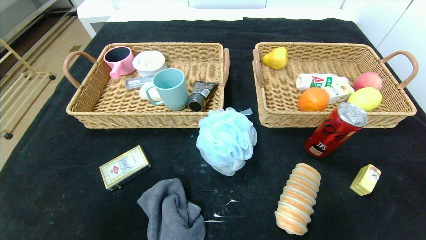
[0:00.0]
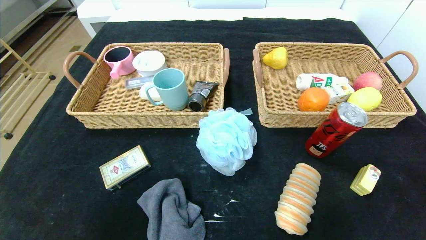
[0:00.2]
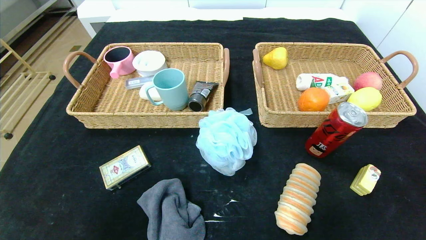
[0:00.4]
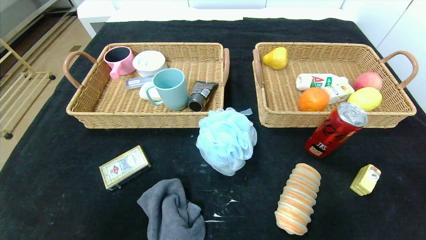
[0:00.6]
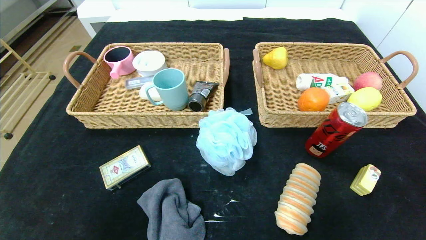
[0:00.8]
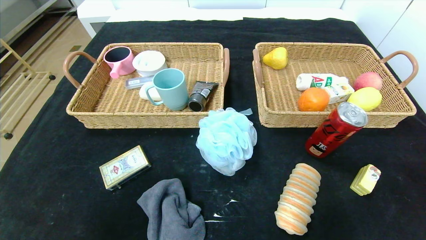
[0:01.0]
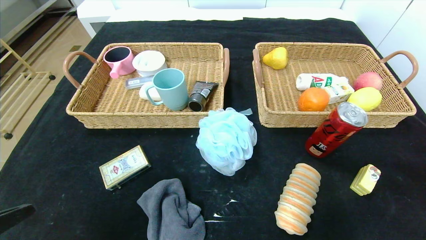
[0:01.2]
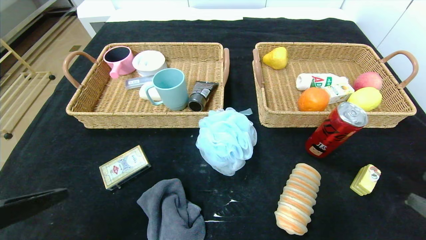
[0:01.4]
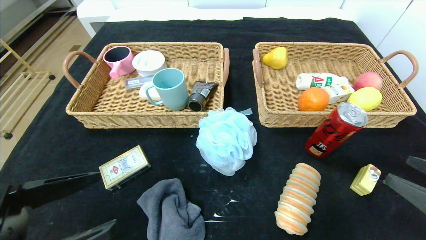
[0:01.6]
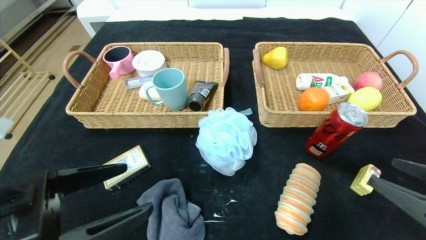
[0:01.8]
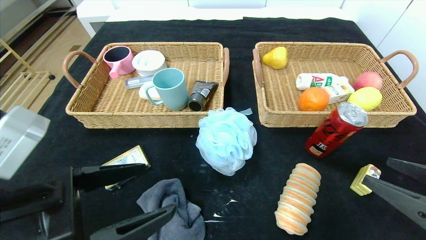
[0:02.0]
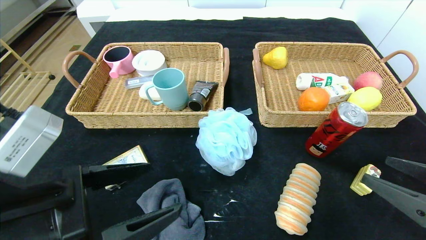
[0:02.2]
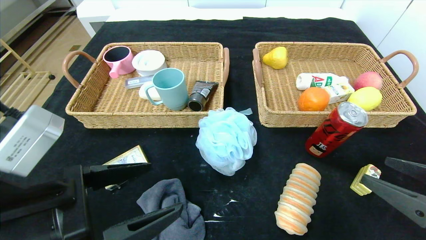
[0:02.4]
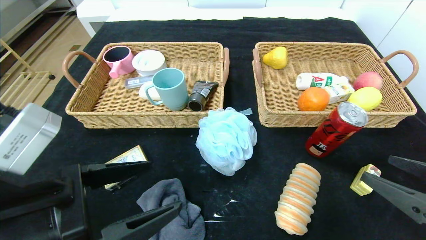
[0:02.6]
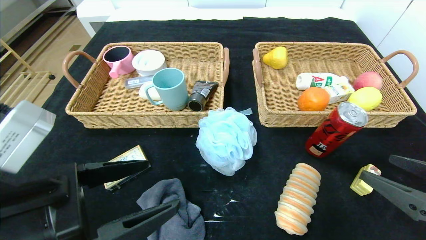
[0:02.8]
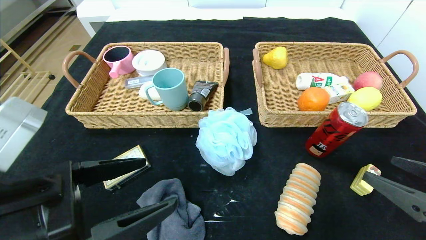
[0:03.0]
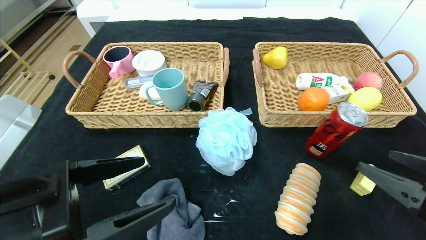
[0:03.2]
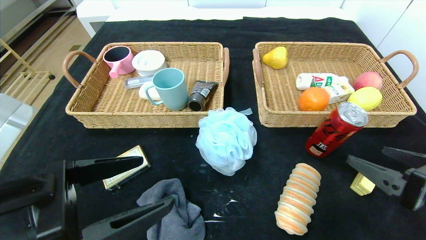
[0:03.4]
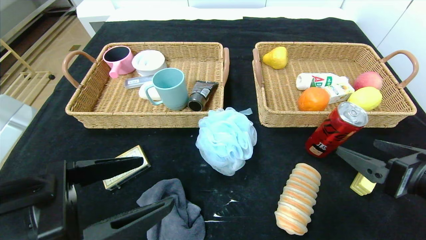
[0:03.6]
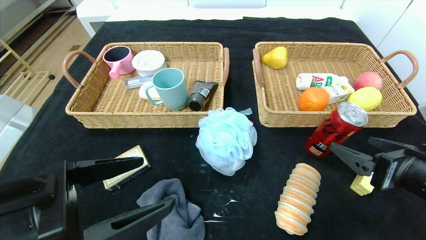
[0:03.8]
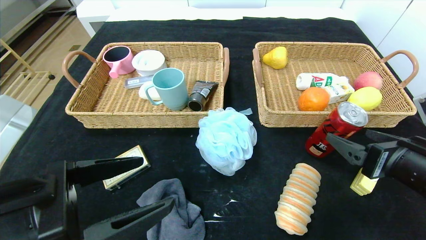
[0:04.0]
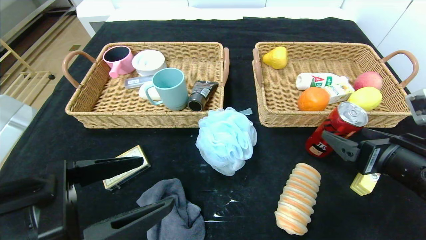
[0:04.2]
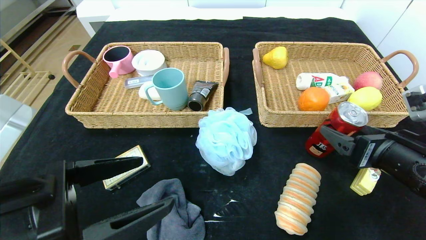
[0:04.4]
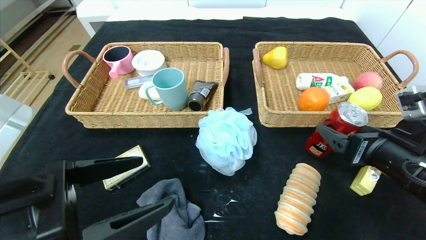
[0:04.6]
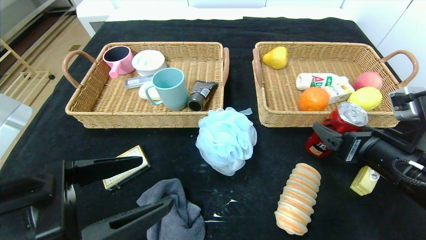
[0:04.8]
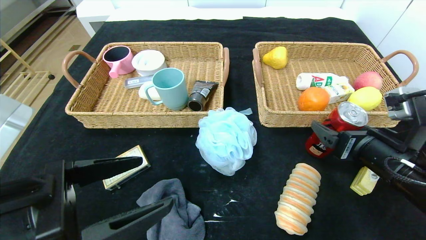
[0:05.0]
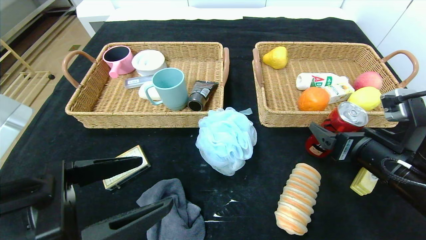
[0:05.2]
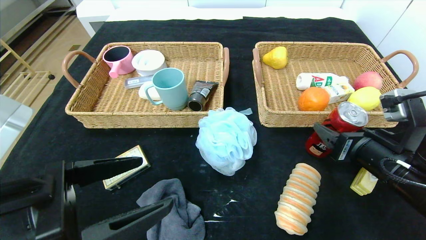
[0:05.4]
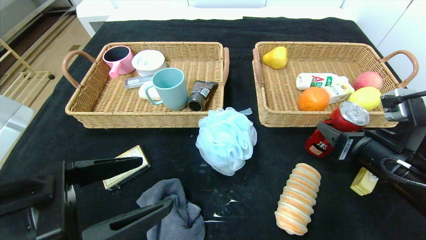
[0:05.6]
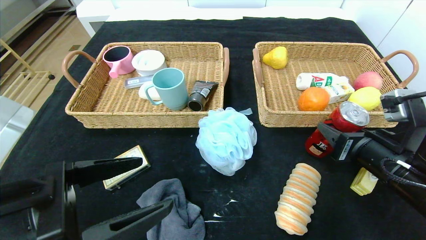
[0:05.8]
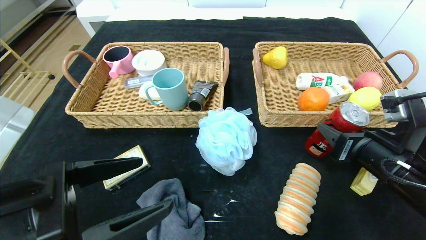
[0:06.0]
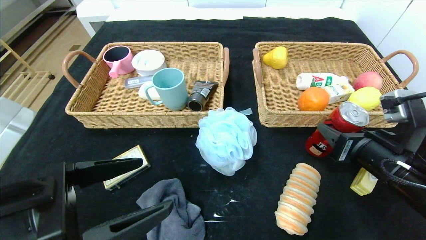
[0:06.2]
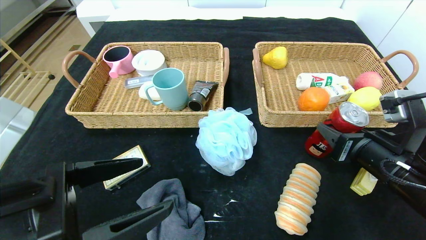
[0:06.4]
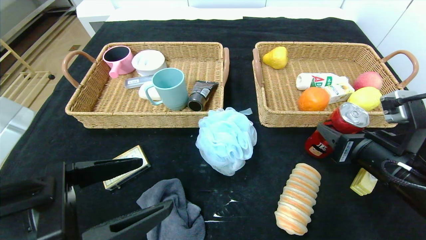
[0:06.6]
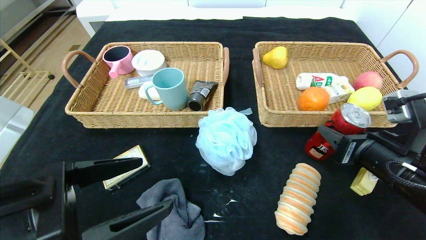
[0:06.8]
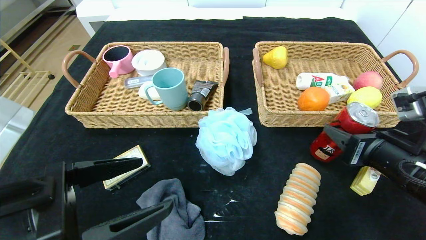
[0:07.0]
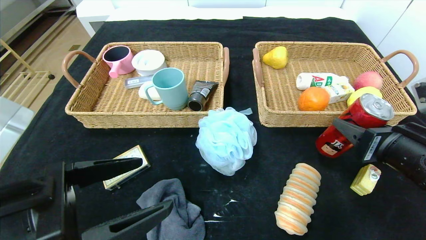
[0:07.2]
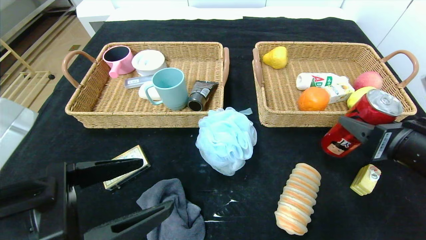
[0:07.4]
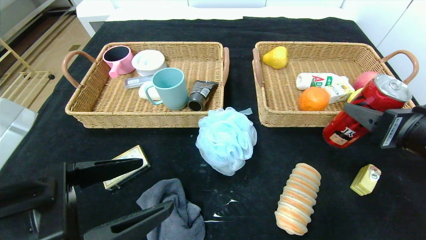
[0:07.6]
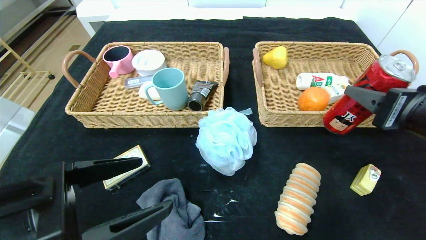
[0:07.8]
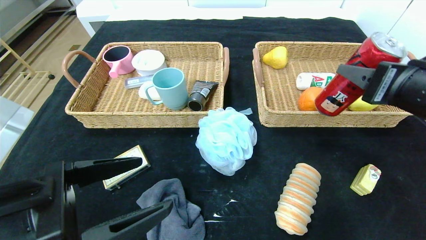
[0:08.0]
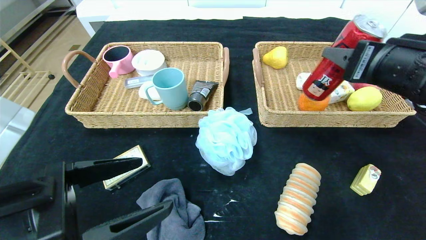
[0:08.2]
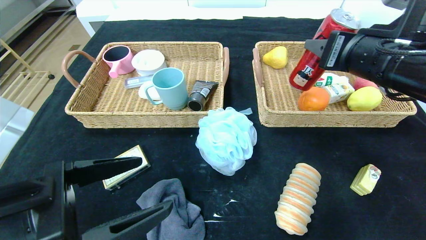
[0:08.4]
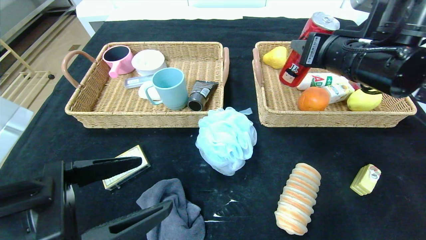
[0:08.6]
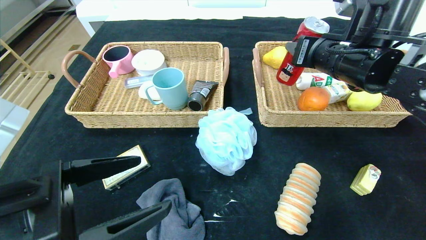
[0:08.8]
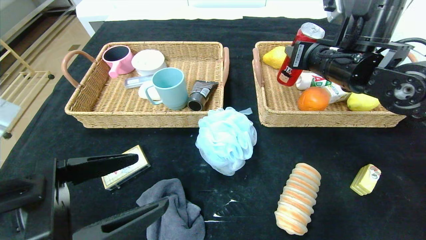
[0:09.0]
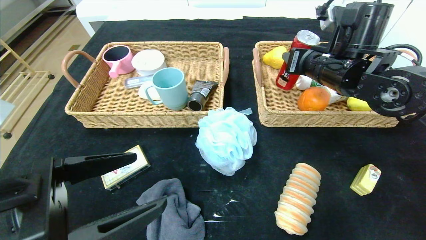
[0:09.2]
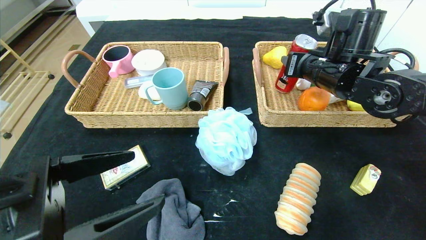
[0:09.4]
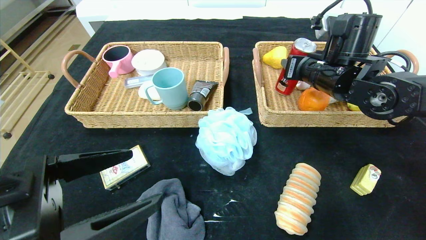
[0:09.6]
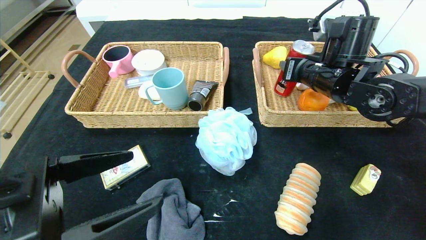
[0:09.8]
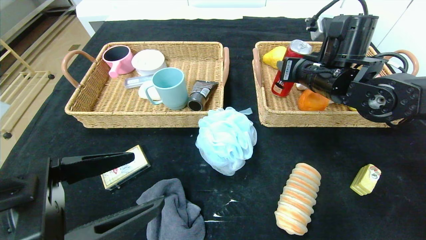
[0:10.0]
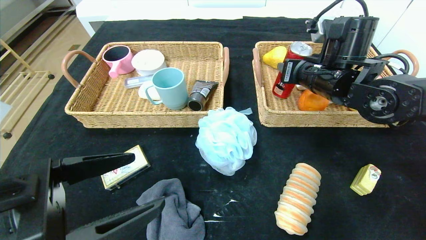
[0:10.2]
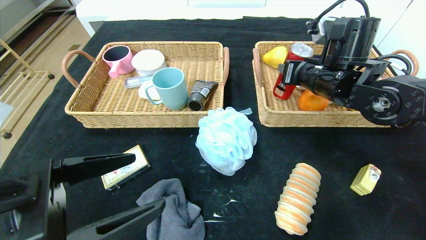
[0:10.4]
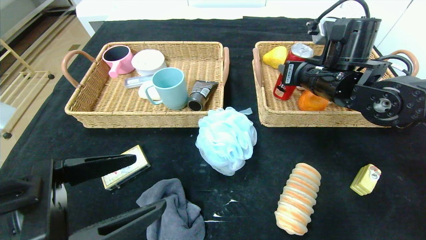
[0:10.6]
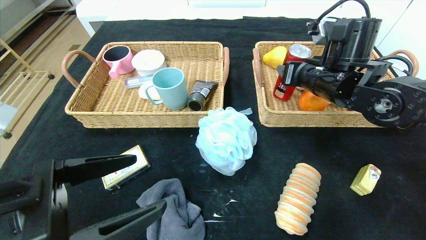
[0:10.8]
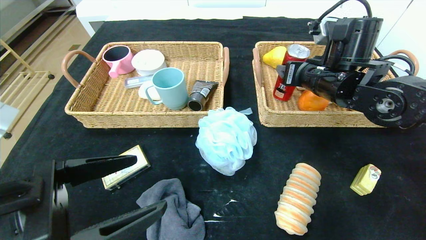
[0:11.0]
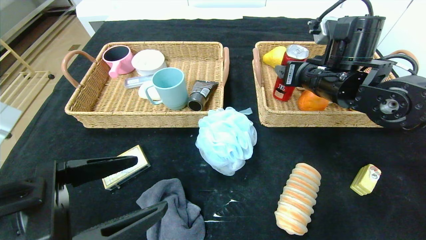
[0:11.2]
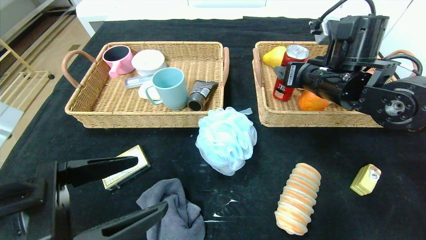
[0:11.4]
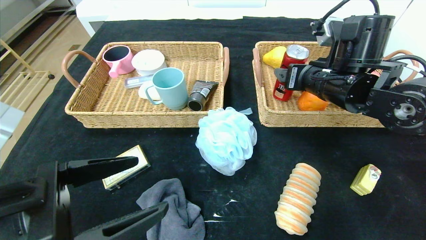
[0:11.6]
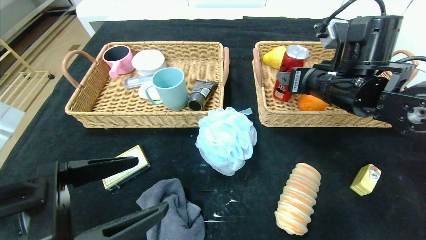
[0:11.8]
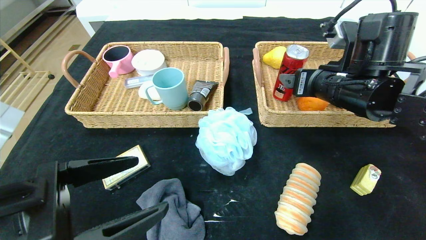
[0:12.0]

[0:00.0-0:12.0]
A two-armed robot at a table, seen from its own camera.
Step, 0:00.0 to 0:11.6: Grasp the canned cola and put it in the right basket.
0:00.0 to 0:01.6: Both grippers travel together upward and forward, approximately 20 cm.
0:01.6 to 0:03.0: The left gripper shifts by about 5 cm.
0:03.0 to 0:04.4: The right gripper heads forward, covering about 10 cm.
0:04.4 to 0:06.0: The right gripper closes up.
0:06.0 to 0:07.6: The right gripper travels upward by about 5 cm.
0:07.6 to 0:09.0: The right gripper goes approximately 20 cm forward and to the left.
0:09.0 to 0:10.4: The grippers stay close to where they were, moving slightly.
0:10.4 to 0:12.0: The right gripper shifts about 5 cm backward, and opens.

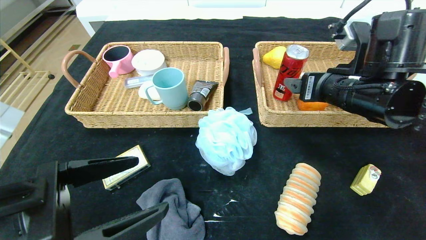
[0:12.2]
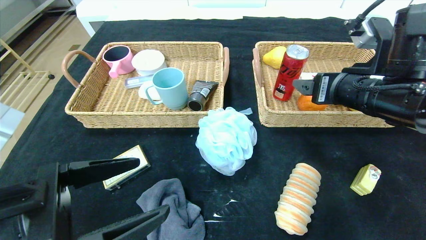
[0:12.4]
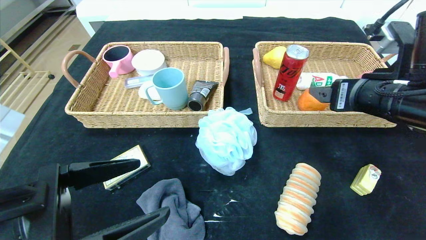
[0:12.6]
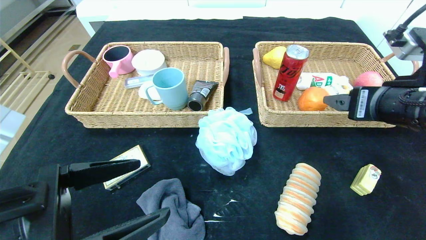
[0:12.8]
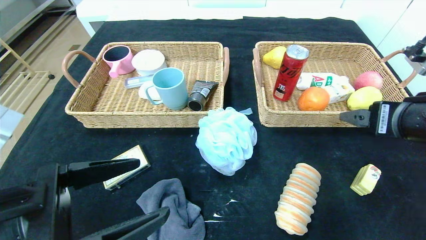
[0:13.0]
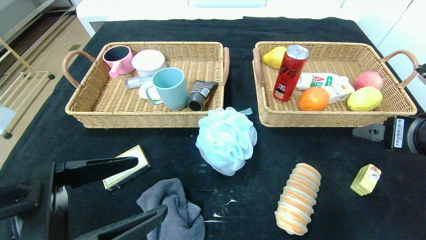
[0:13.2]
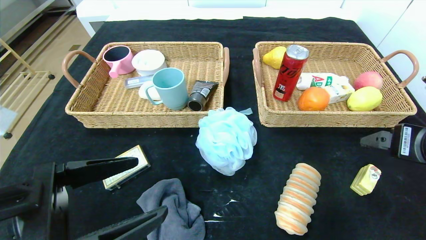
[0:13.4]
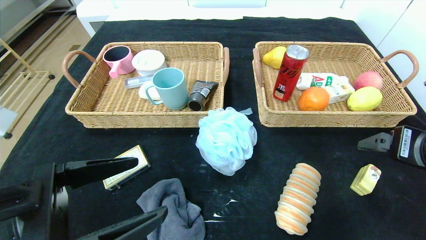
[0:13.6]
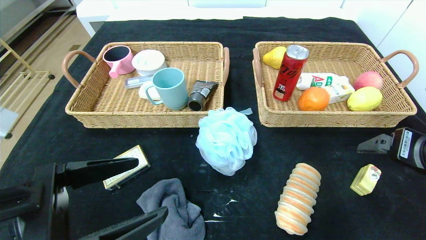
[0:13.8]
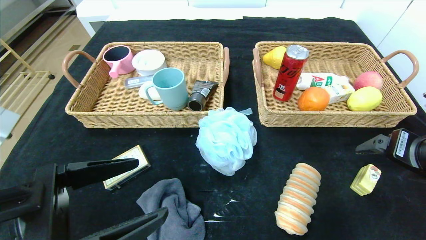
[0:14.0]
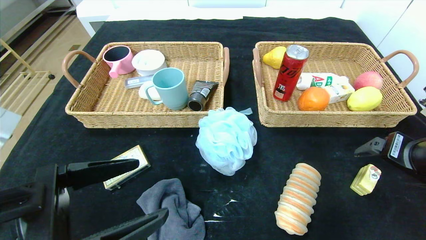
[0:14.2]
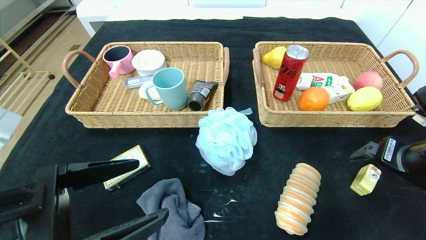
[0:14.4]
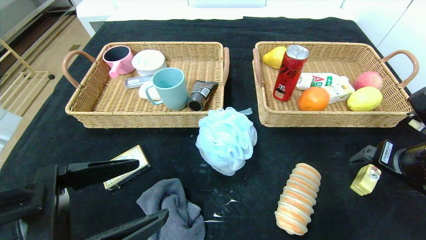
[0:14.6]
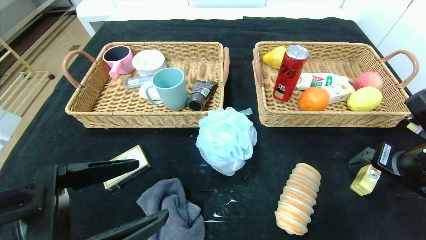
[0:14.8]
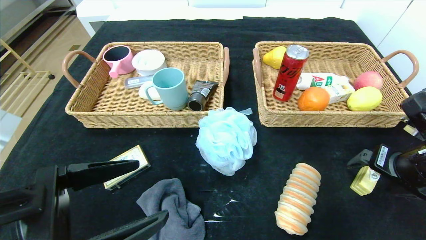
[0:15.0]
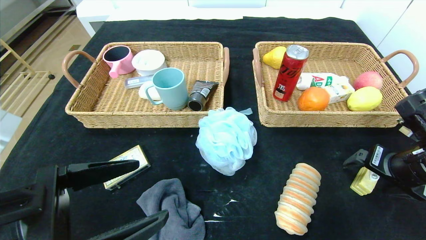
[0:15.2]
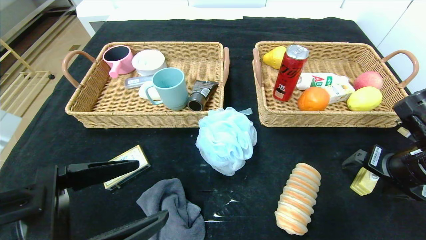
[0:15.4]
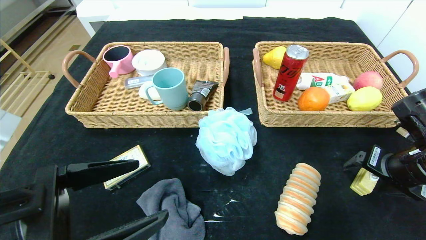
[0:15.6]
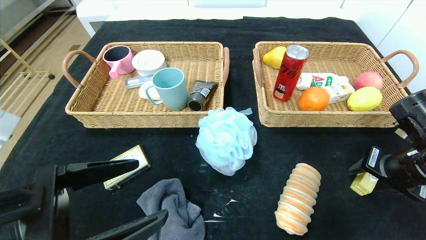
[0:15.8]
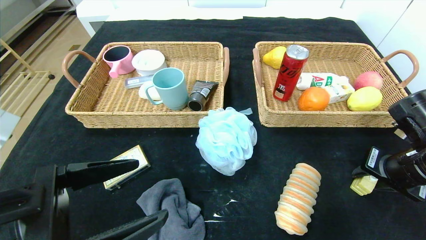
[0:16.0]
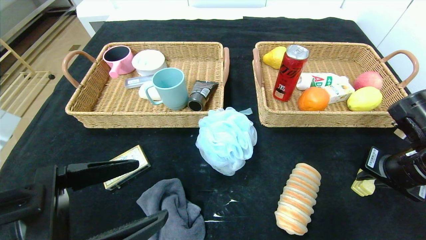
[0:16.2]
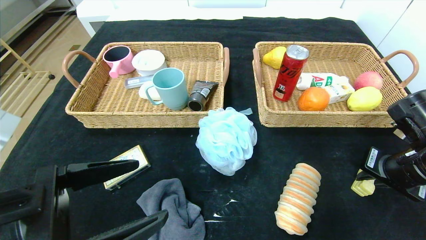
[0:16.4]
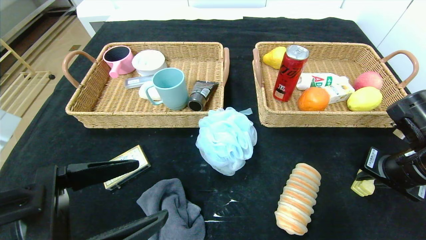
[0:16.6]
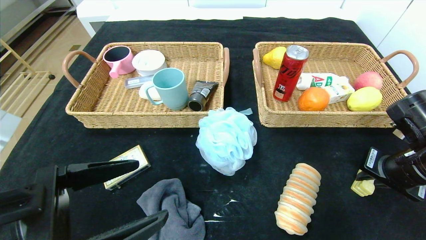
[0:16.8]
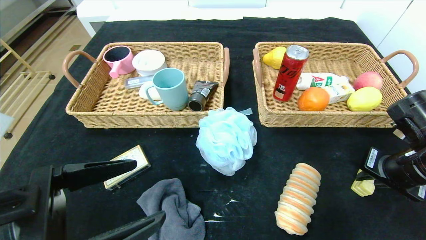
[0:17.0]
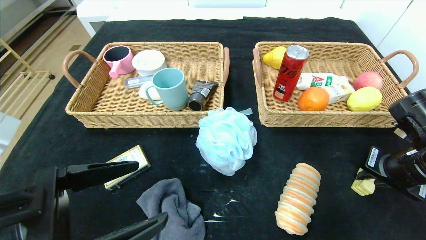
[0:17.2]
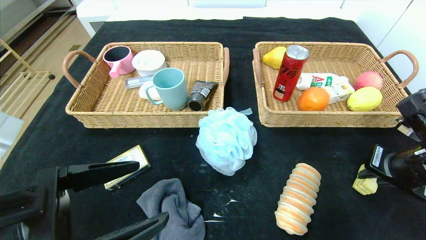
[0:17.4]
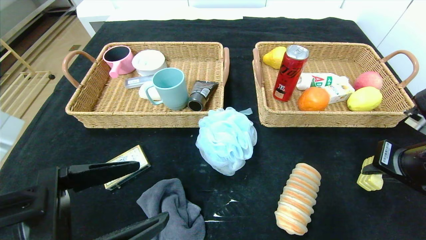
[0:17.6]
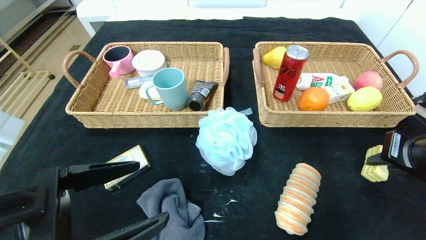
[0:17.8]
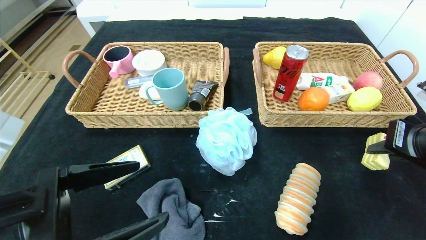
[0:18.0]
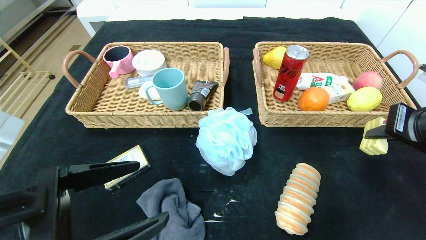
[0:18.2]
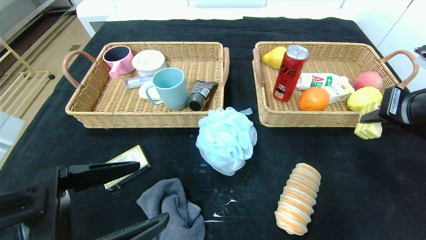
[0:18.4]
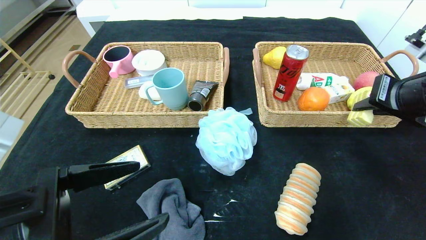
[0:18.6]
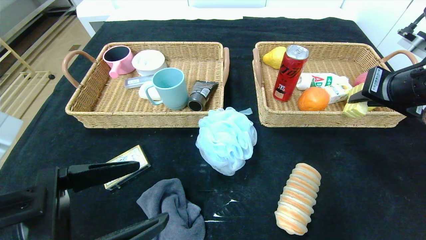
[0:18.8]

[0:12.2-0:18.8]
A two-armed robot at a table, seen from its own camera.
0:12.2 to 0:13.8: The right gripper moves backward and to the right, about 15 cm.
0:13.8 to 0:15.4: The right gripper travels downward by some 5 cm.
0:15.4 to 0:17.2: The right gripper closes.
0:17.2 to 0:18.8: The right gripper moves upward, some 10 cm.
